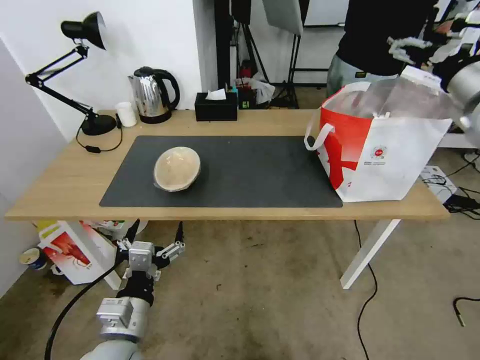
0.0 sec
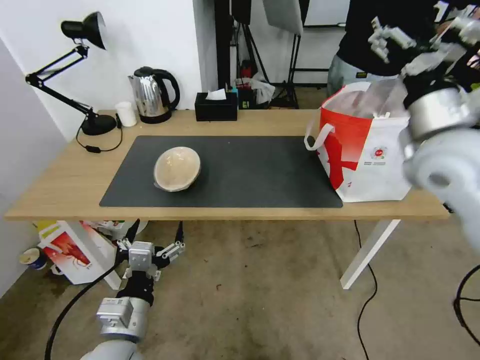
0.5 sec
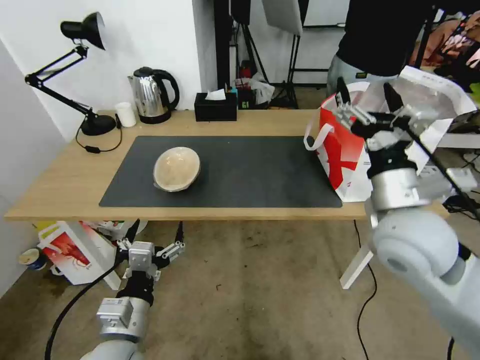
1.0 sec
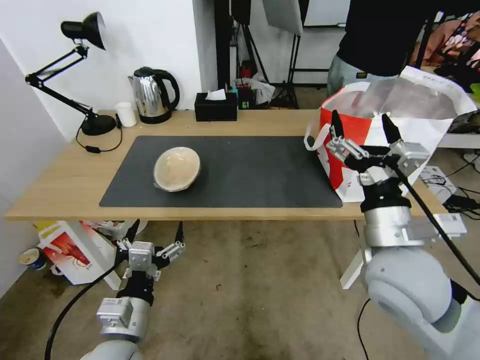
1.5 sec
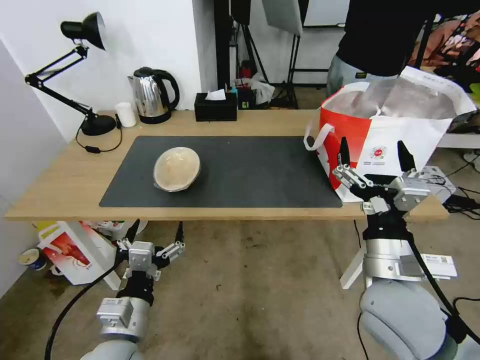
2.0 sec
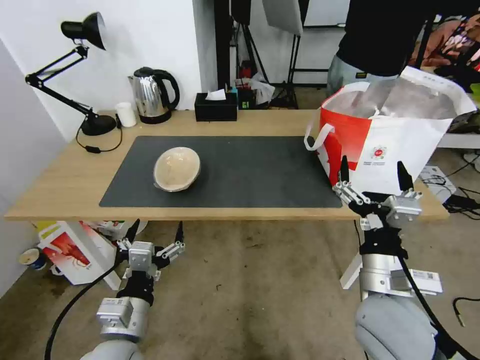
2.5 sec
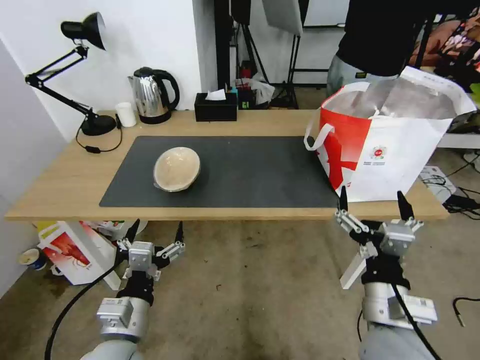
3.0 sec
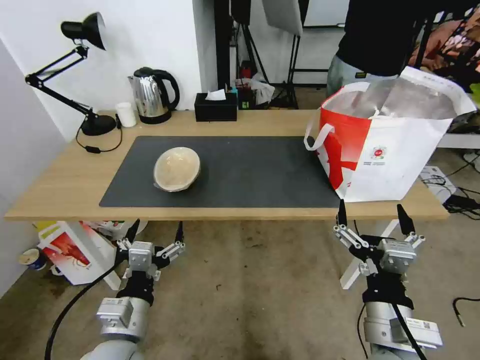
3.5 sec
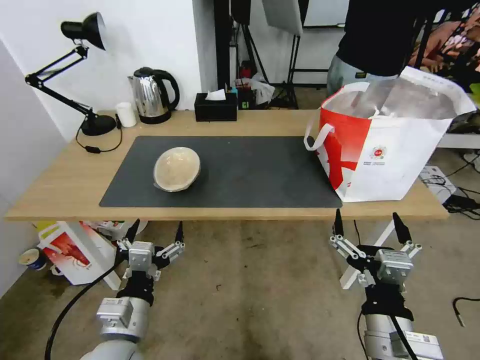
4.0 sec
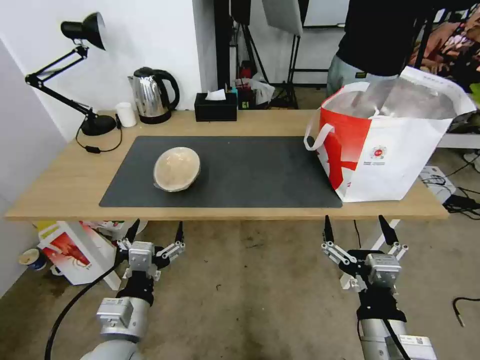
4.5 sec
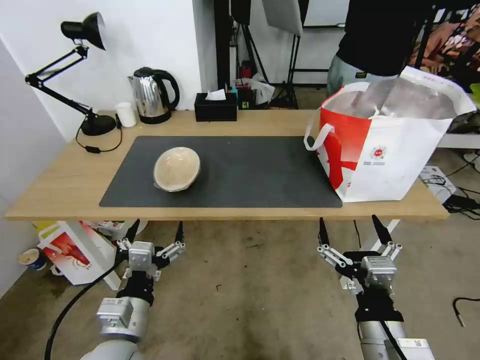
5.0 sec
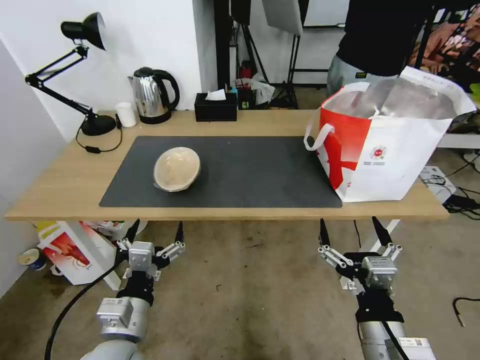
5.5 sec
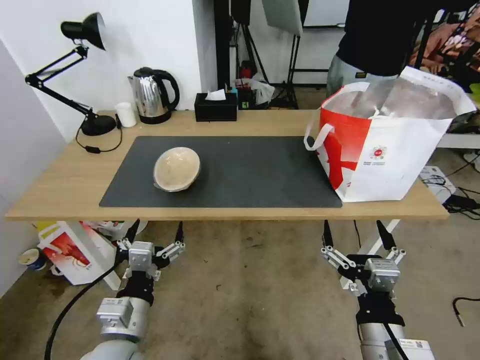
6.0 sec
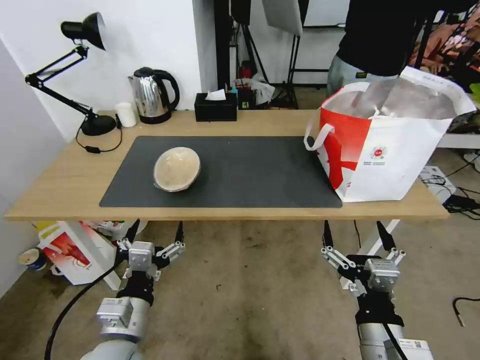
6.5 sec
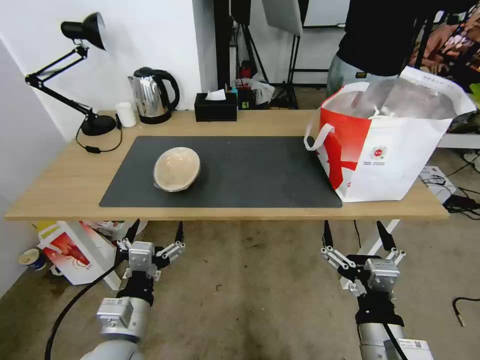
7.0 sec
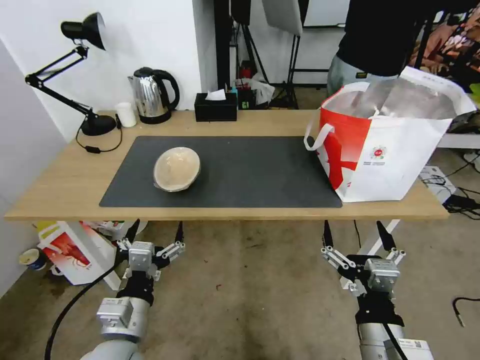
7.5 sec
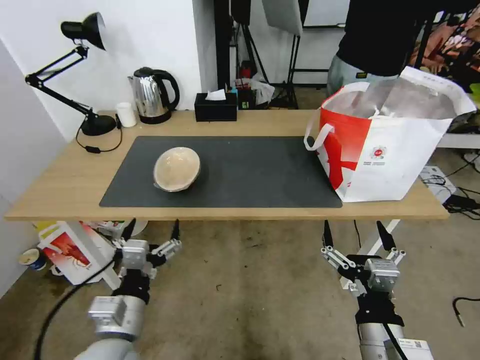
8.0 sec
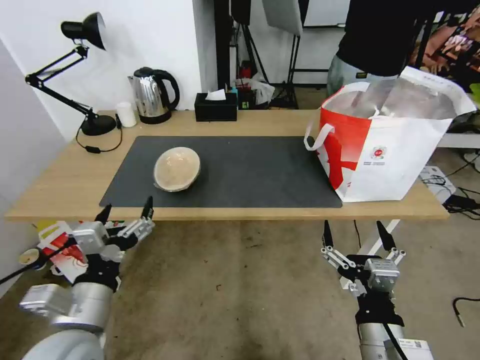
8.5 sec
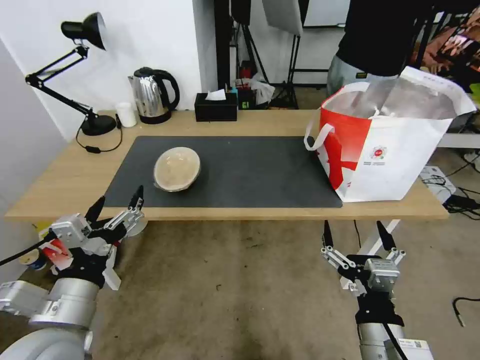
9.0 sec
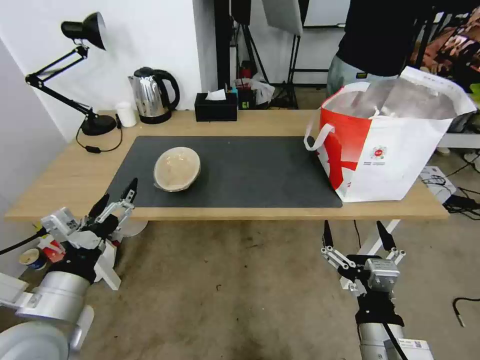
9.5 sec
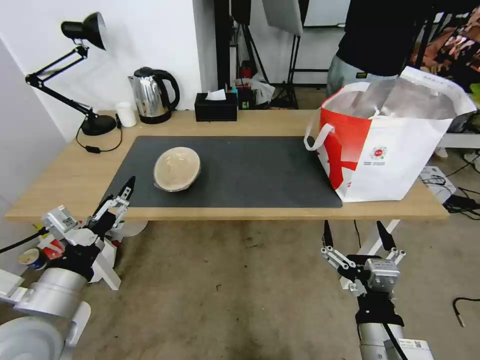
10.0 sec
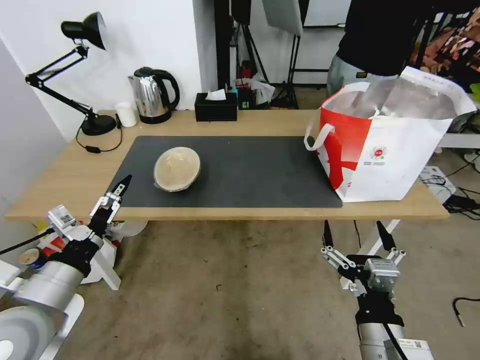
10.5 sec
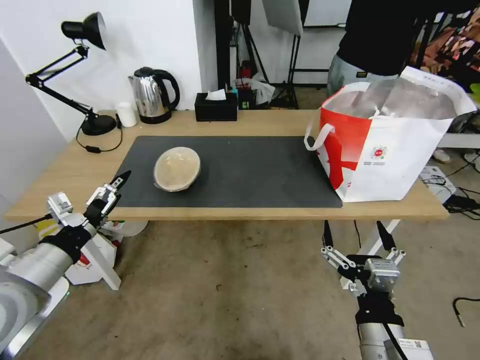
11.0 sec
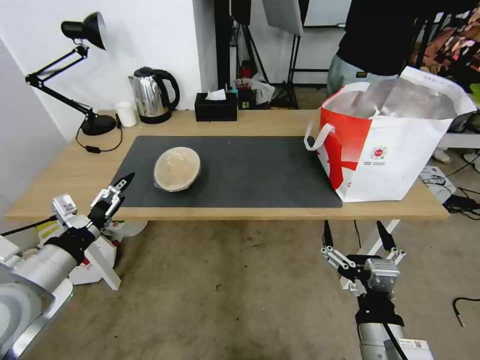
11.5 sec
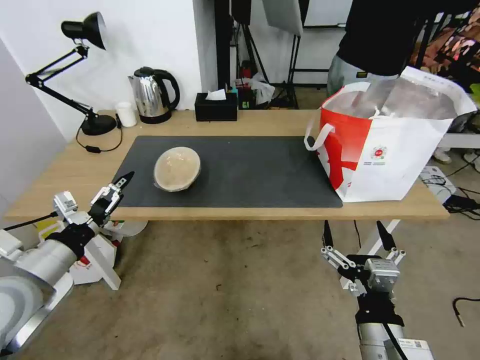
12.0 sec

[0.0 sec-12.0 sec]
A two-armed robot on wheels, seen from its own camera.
Task of the whole recording: Pick up the trash from the table and place it into the takeout bag.
0.0 sec to 2.0 sec: The right gripper goes approximately 35 cm backward, downward and to the left.
2.0 sec to 4.0 sec: The right gripper goes some 15 cm backward and downward.
4.0 sec to 6.0 sec: The grippers move only a little.
6.0 sec to 8.0 sec: Both grippers stay put.
8.0 sec to 10.0 sec: The left gripper shifts some 10 cm upward and to the left.
10.0 sec to 12.0 sec: The left gripper is displaced to the left and forward by some 10 cm.

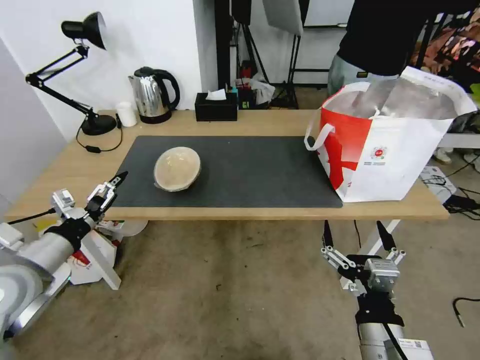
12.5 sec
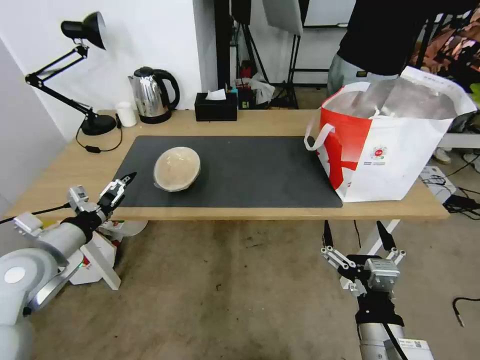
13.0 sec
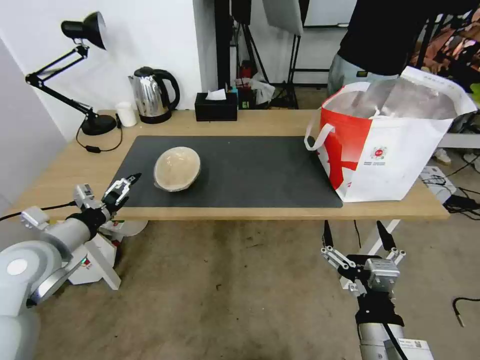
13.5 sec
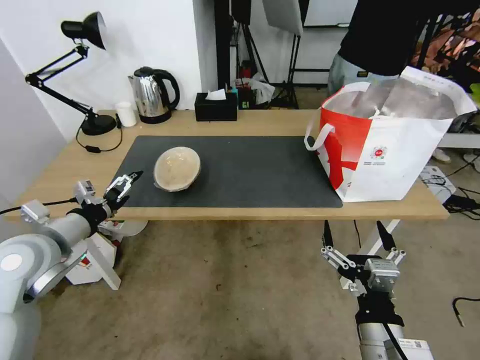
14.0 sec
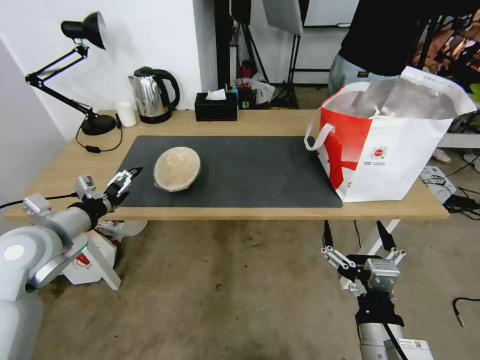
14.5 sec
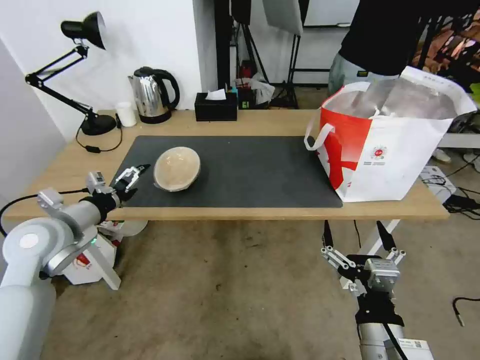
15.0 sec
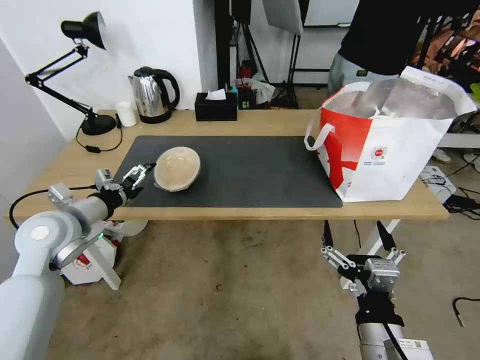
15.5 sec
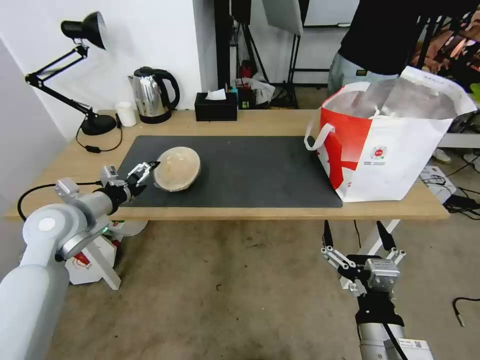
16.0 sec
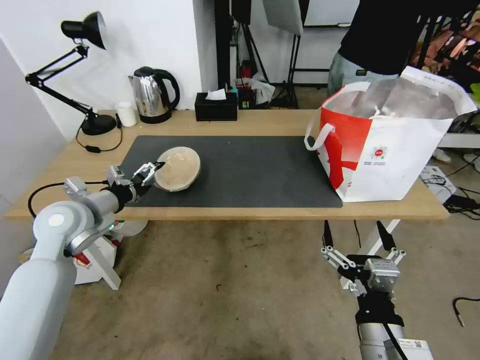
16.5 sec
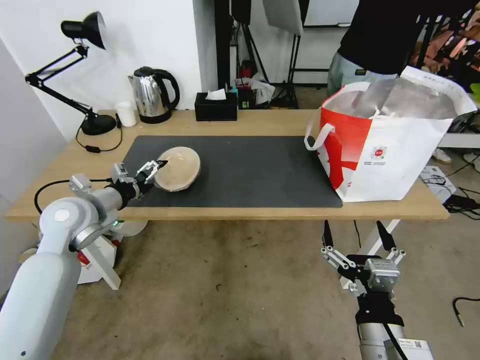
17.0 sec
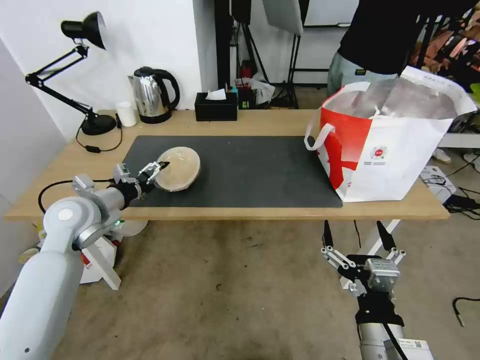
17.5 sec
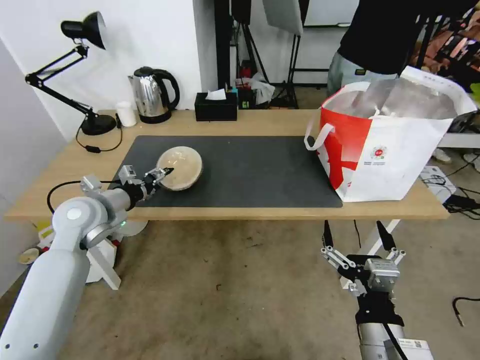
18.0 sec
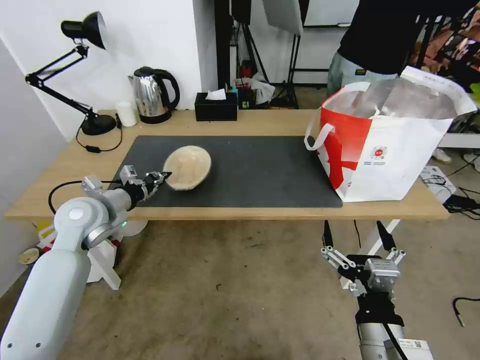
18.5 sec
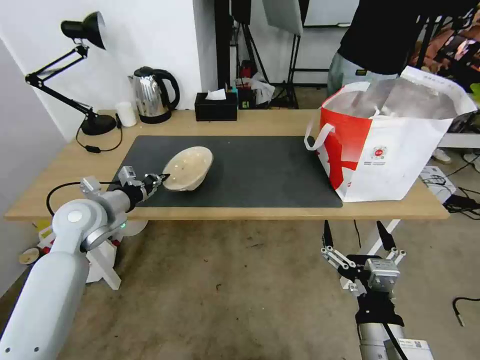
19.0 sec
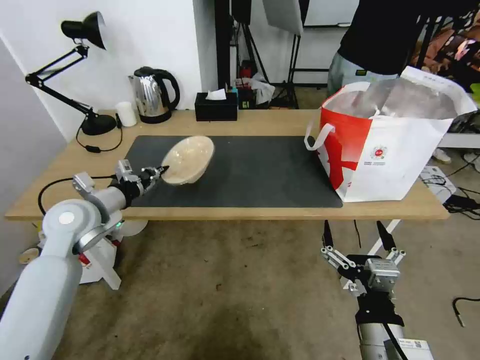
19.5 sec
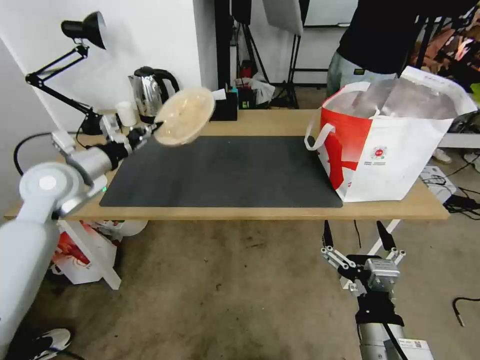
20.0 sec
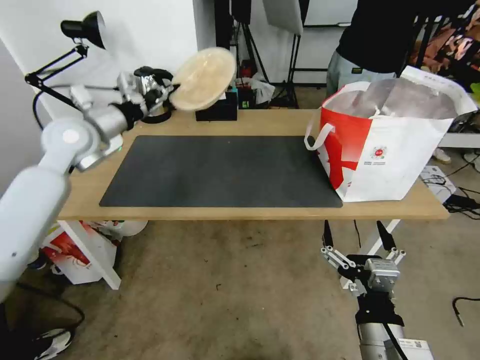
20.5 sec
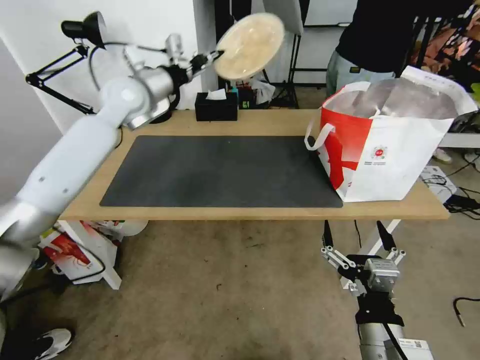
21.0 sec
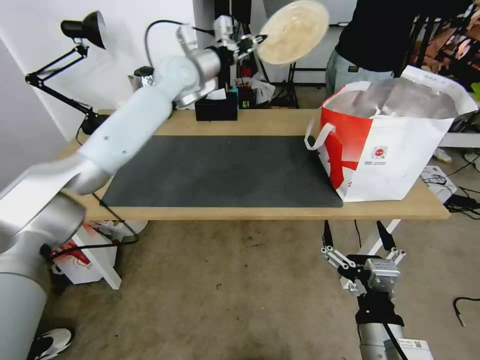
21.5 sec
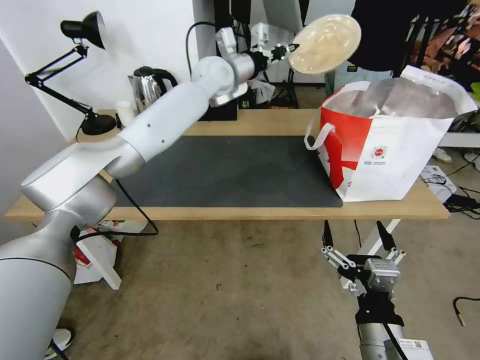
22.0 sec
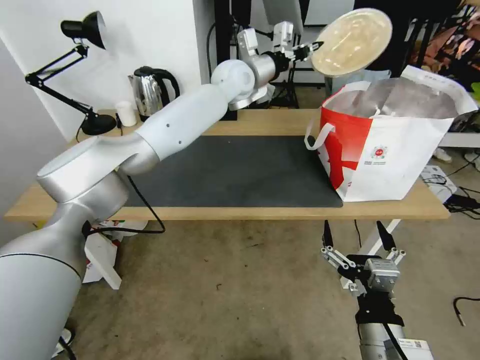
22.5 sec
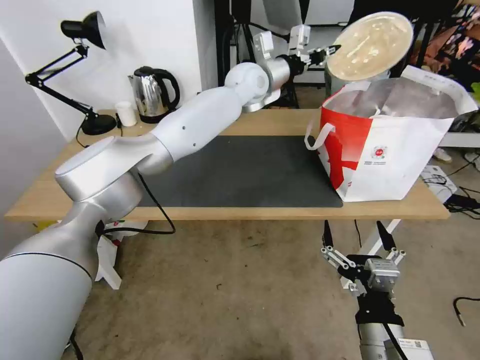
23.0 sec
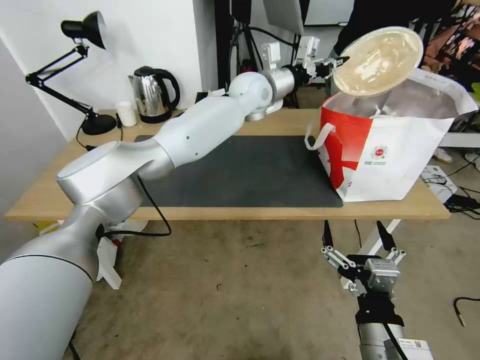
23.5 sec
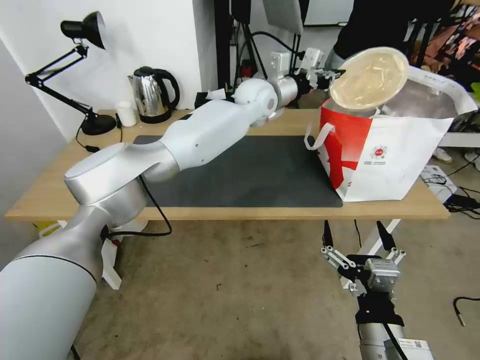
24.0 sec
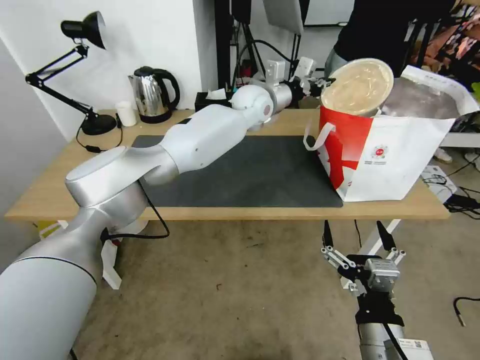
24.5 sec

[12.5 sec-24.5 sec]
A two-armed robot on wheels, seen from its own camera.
Task of the whole recording: Pick up the trash from the table and place it into the takeout bag.
12.5 sec to 14.5 sec: The left gripper travels forward by approximately 5 cm.
14.5 sec to 16.5 sec: The left gripper is displaced forward by roughly 5 cm.
16.5 sec to 18.5 sec: The left gripper closes up.
18.5 sec to 20.5 sec: The left gripper heads upward and forward, covering roughly 15 cm.
20.5 sec to 22.5 sec: The left gripper moves to the right and forward, about 35 cm.
22.5 sec to 24.5 sec: The left gripper shifts approximately 5 cm downward.

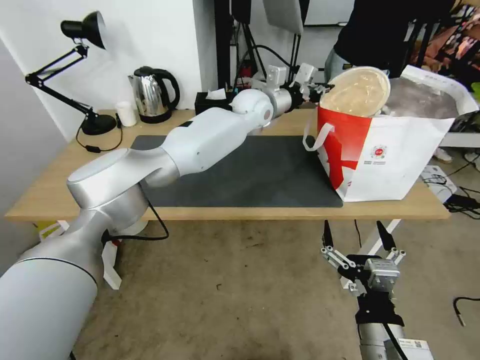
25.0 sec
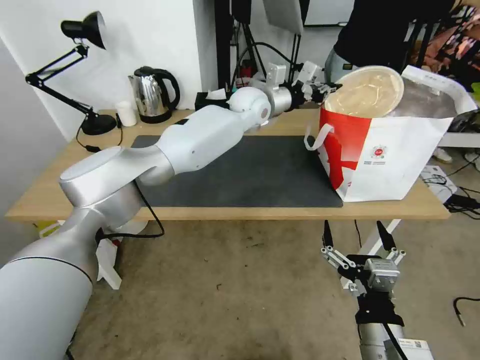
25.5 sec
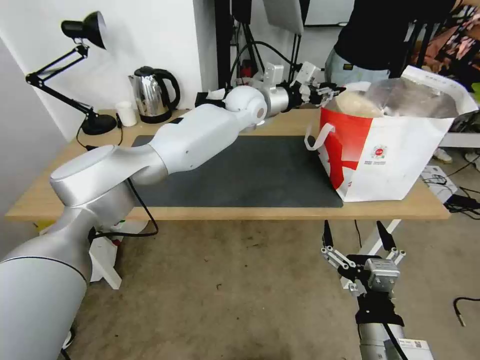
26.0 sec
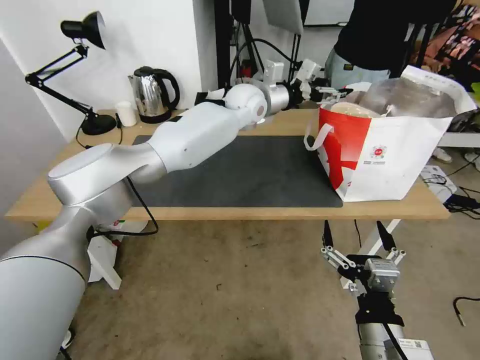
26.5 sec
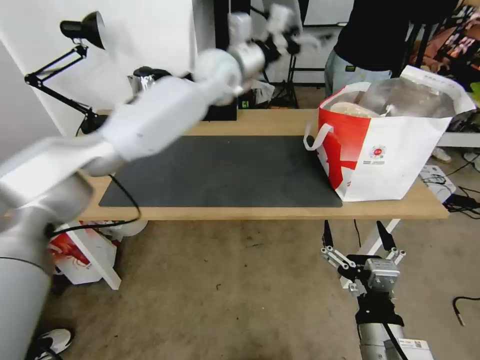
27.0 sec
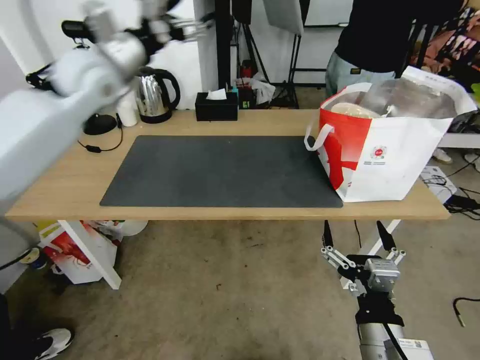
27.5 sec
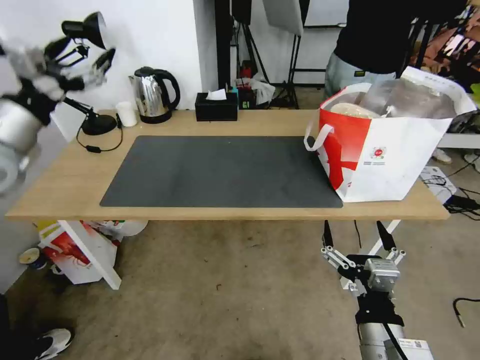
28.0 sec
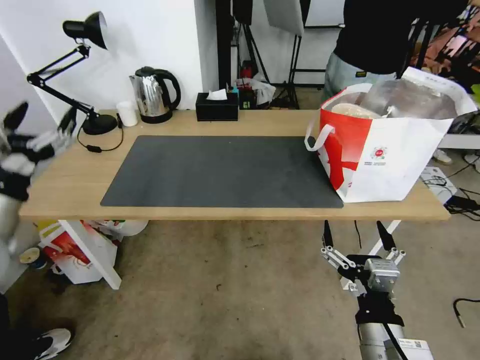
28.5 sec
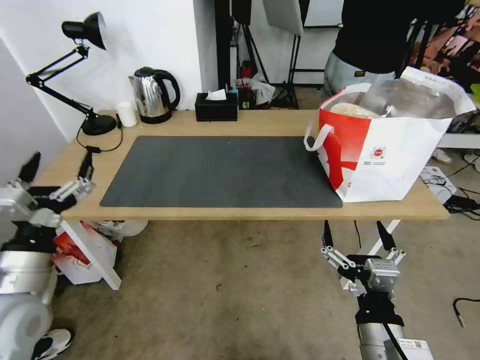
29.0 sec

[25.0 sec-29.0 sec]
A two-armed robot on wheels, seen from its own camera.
Task of the whole recording: Pick up the trash from the table and place it into the takeout bag.
25.0 sec to 27.0 sec: The left gripper is displaced upward and to the left by approximately 15 cm, and opens its fingers.
27.0 sec to 29.0 sec: The left gripper is displaced backward, to the left and downward by about 50 cm.
